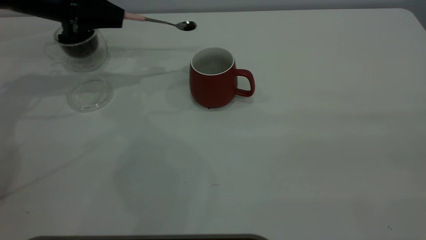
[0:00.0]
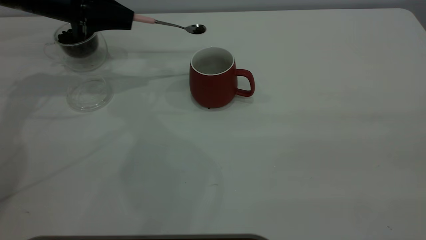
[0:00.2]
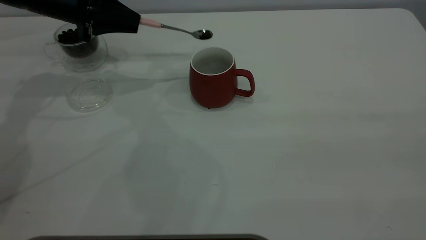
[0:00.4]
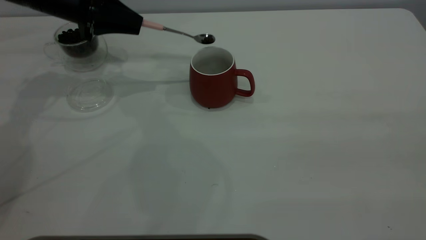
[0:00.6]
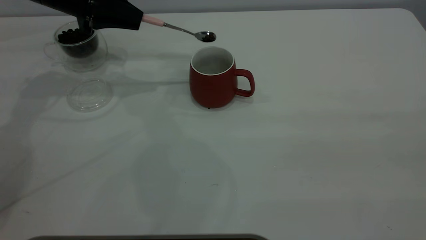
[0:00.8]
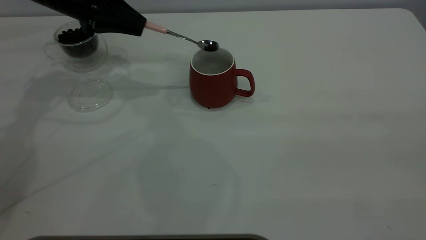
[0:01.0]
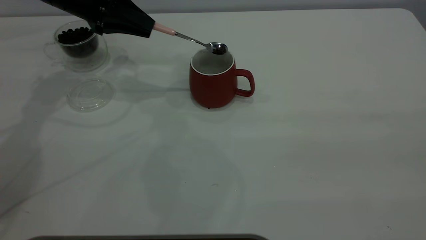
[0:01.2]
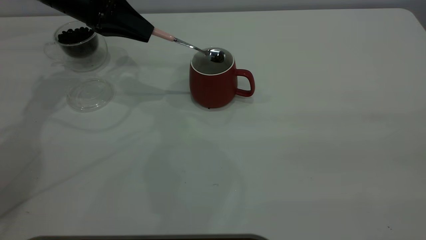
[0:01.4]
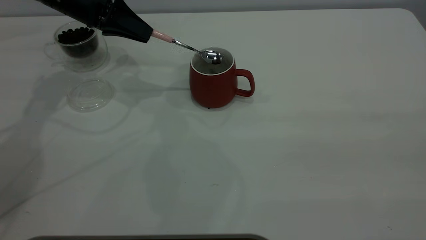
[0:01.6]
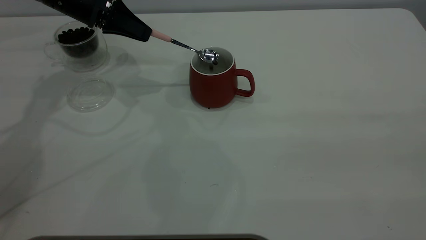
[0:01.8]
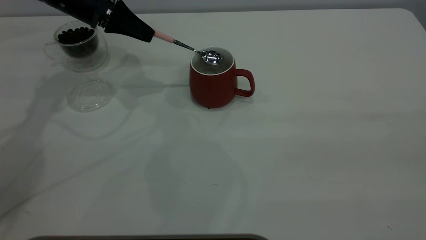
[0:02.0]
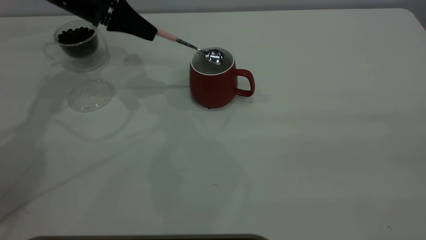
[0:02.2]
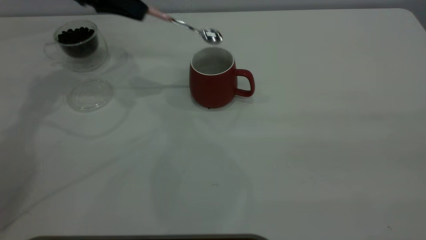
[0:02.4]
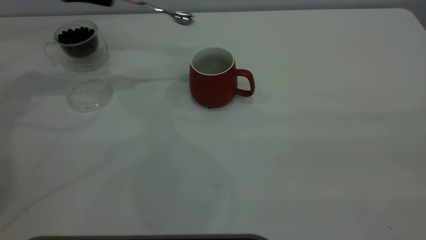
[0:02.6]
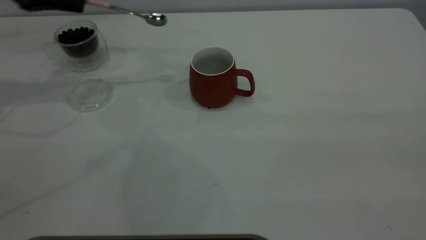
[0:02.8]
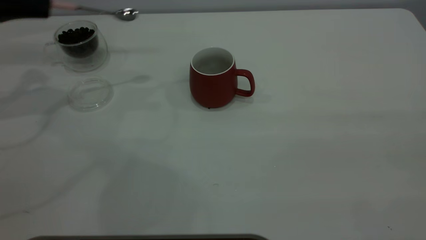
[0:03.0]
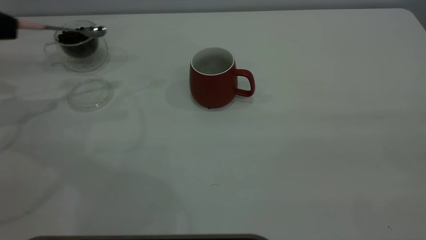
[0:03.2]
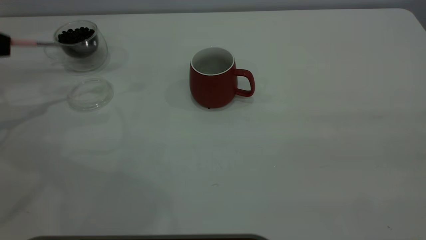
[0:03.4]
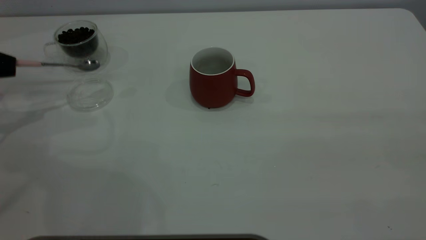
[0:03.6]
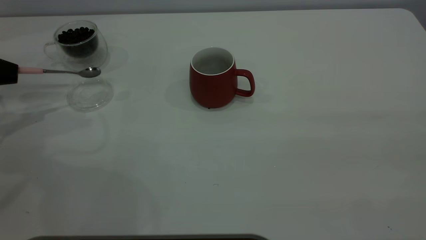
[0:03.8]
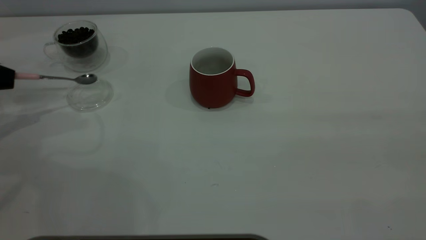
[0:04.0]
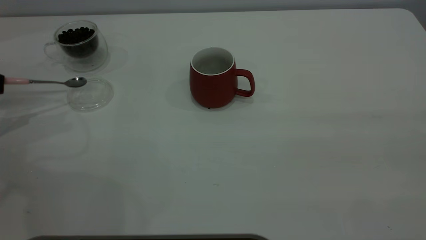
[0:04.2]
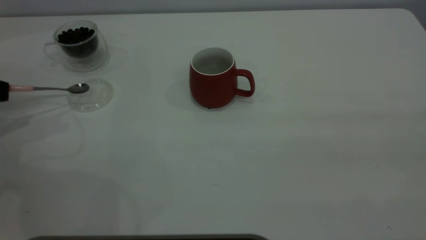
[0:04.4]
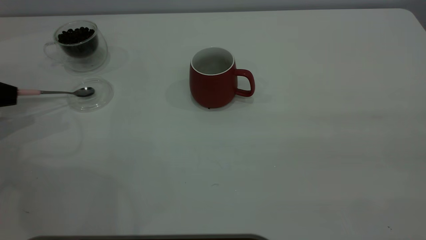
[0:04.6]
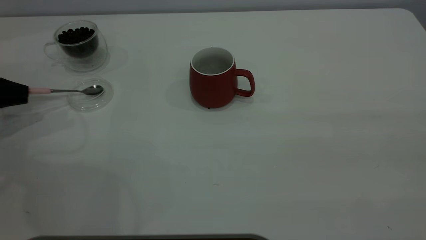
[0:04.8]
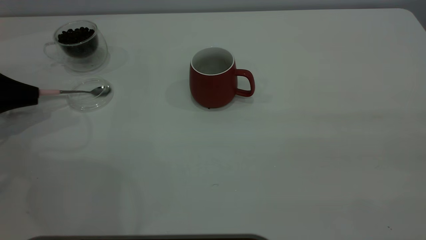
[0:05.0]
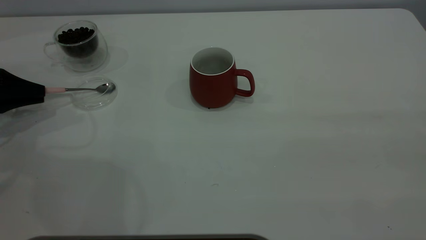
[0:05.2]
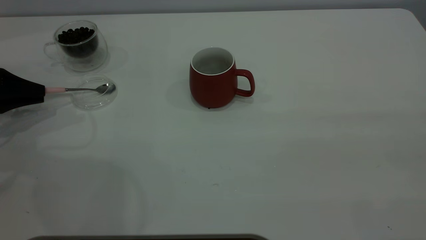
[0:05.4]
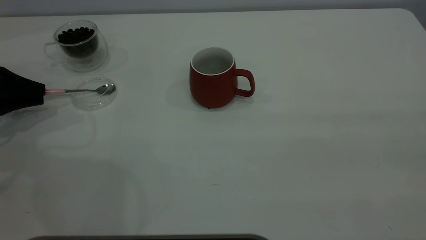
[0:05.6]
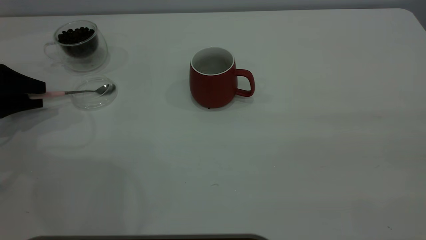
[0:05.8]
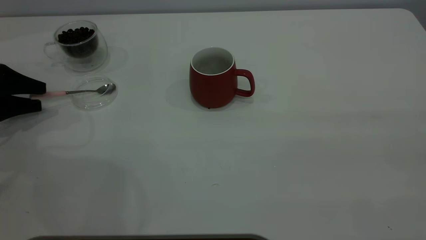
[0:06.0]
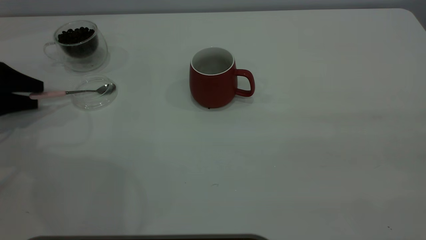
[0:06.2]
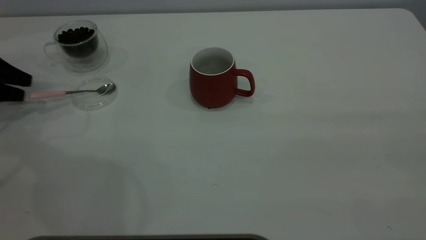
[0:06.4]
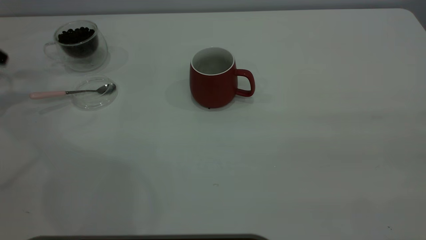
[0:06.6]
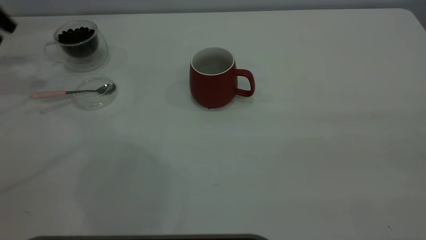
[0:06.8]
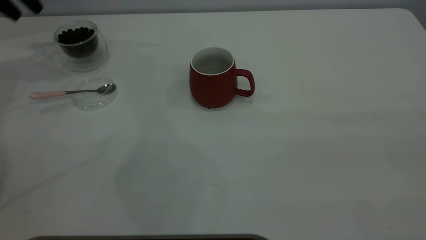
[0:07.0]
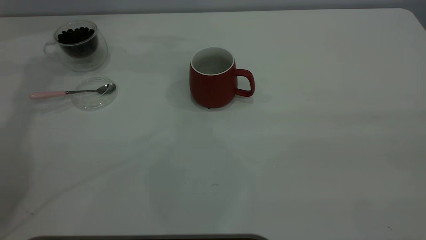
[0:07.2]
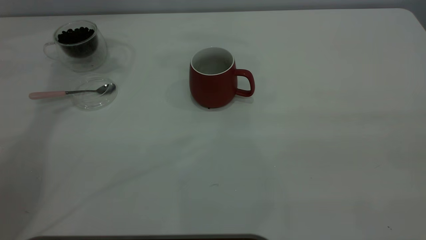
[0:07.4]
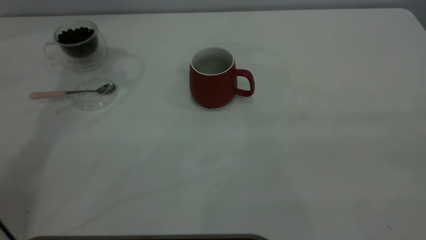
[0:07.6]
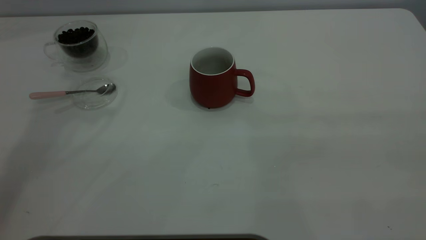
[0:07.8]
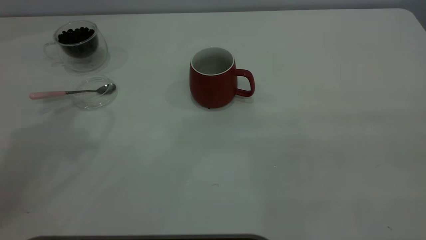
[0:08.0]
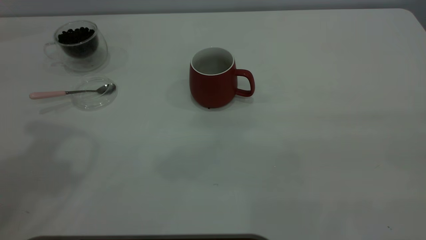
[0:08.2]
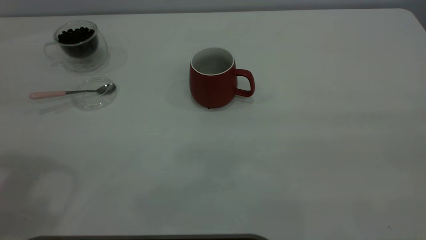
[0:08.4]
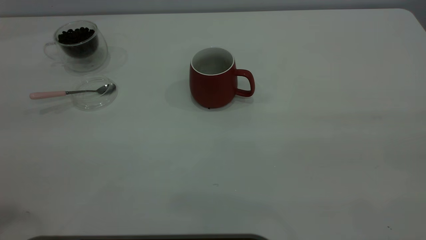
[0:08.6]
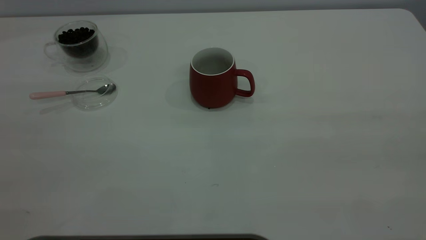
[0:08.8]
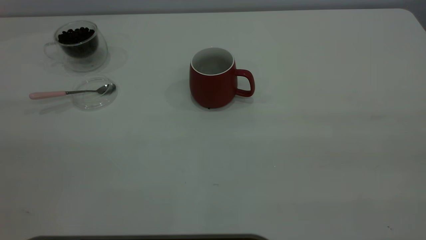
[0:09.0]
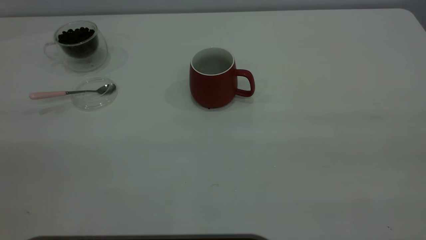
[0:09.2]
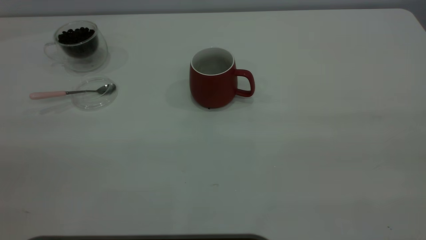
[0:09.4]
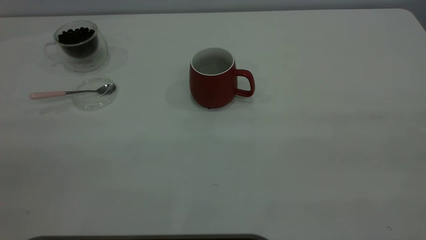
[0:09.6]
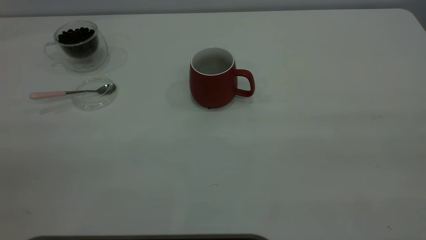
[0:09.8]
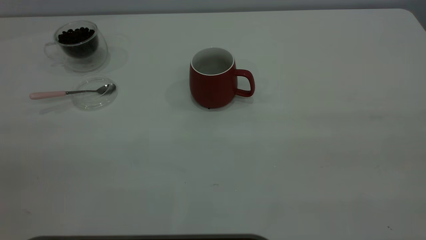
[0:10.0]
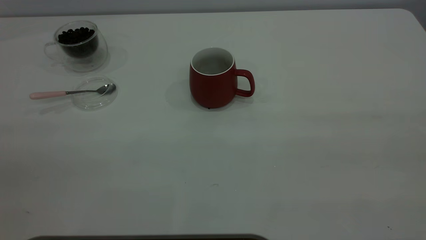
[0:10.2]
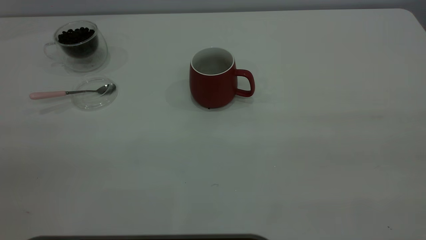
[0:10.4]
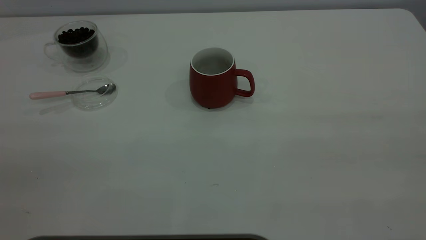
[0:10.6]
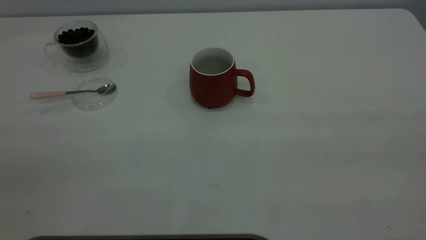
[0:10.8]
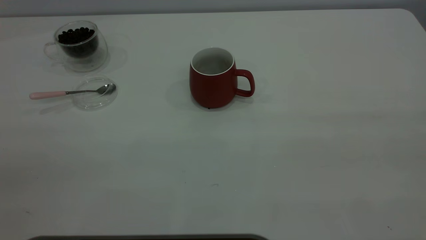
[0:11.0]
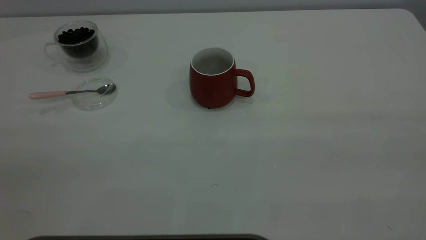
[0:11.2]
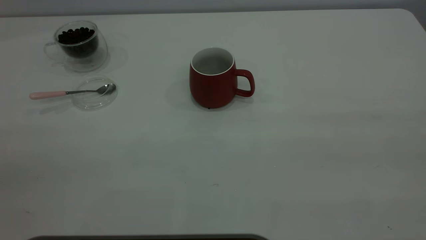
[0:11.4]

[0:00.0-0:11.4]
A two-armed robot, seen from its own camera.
Task of the whole recording: the right gripper place the red cup in the center of the table, the left gripper take the pink spoon from the cup lid and scoop out the coffee beans from the coffee cup and put them into the red cup, the left gripper put the spoon back into the cup lid.
Step, 0:00.0 to 0:02.4: Scoop a spoonful of beans into the cup.
Step, 0:02.6 to 0:06.4: Place the spoon back in its original place.
0:00.0 to 0:01.4: The left gripper is displaced to the right by approximately 5 cm.
0:01.4 to 0:02.8: The left gripper moves to the left, some 10 cm.
0:02.8 to 0:04.2: The left gripper heads to the left, downward and backward, covering some 20 cm.
0:04.2 to 0:05.6: The left gripper moves about 5 cm, and opens up.
0:05.6 to 0:07.2: The left gripper travels upward, forward and to the right by about 30 cm, and opens.
0:10.0 to 0:11.4: Both grippers stay put.

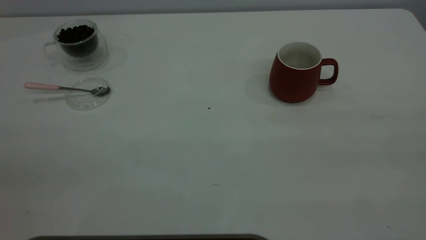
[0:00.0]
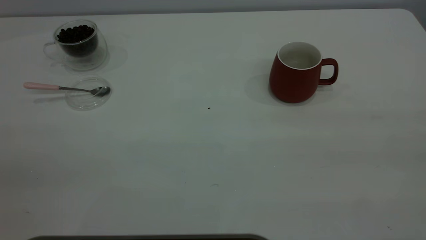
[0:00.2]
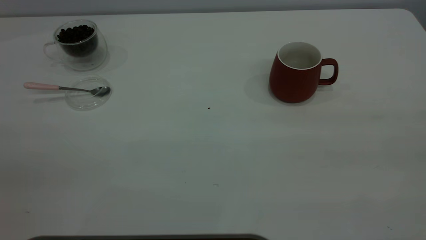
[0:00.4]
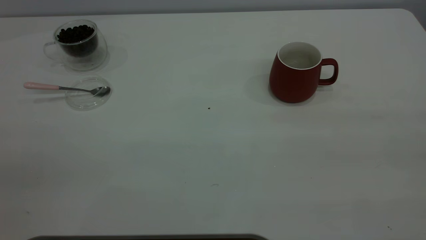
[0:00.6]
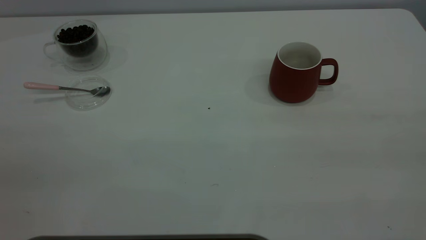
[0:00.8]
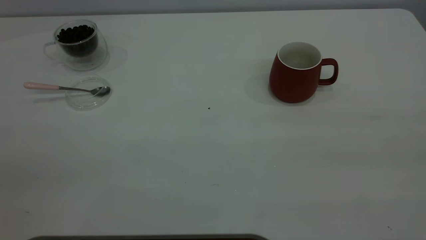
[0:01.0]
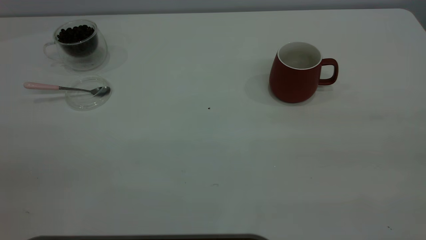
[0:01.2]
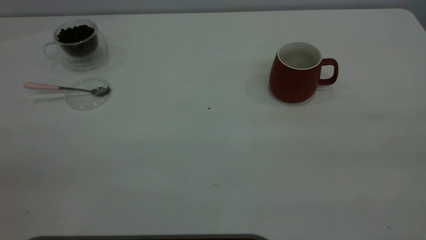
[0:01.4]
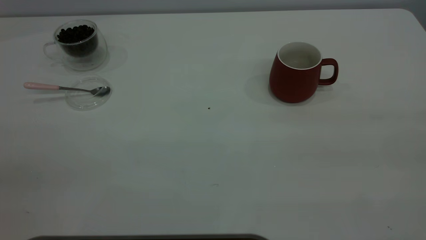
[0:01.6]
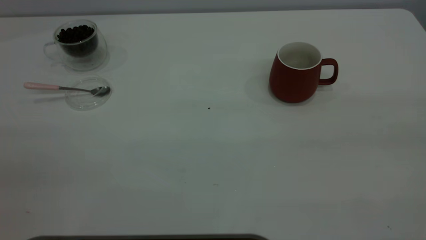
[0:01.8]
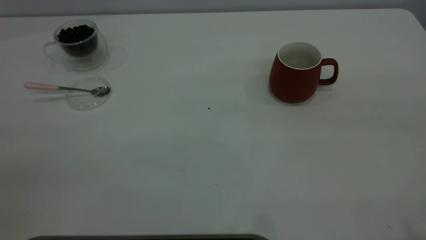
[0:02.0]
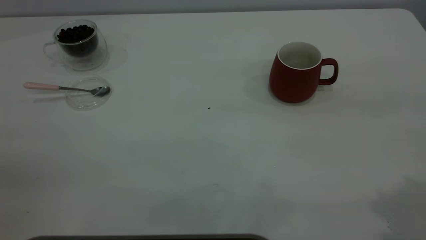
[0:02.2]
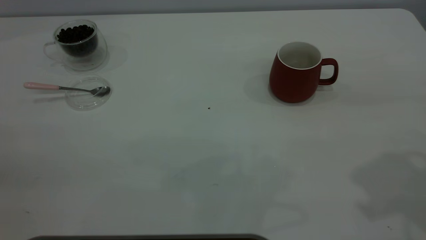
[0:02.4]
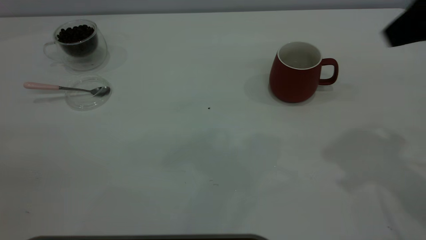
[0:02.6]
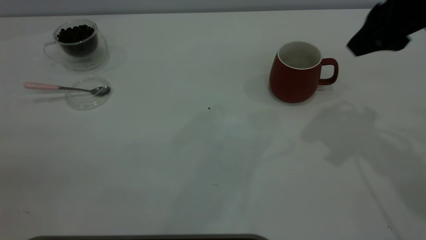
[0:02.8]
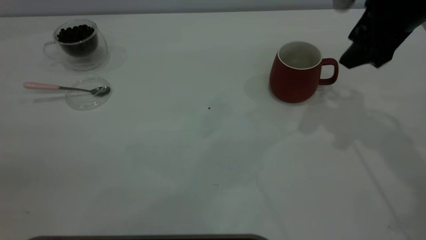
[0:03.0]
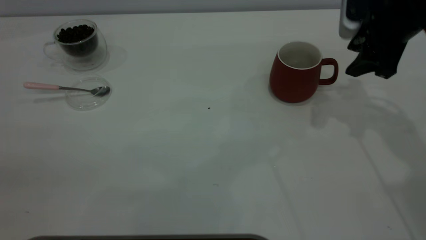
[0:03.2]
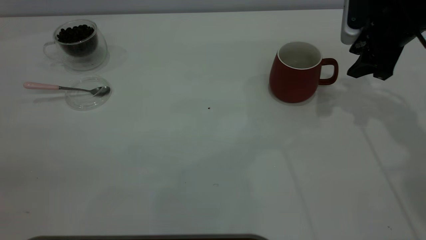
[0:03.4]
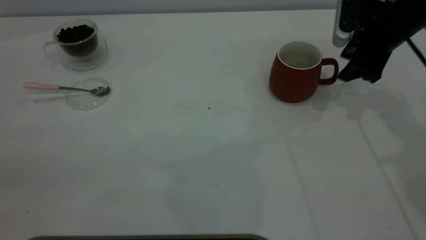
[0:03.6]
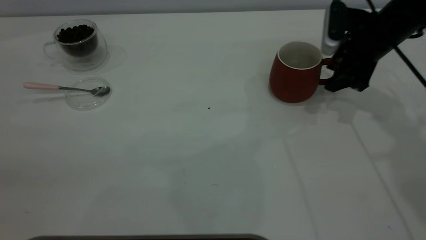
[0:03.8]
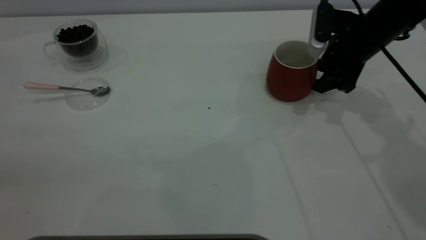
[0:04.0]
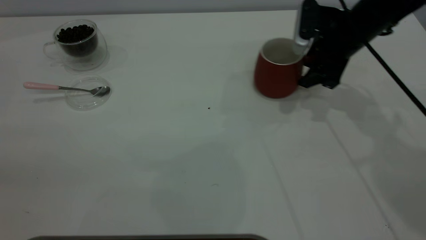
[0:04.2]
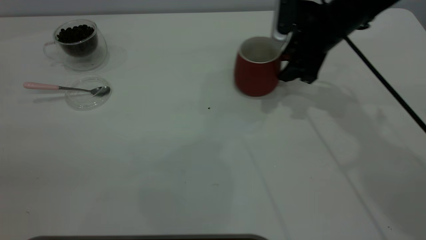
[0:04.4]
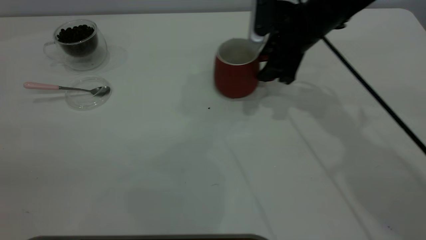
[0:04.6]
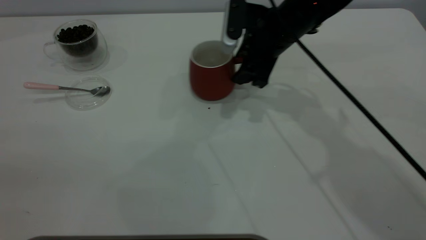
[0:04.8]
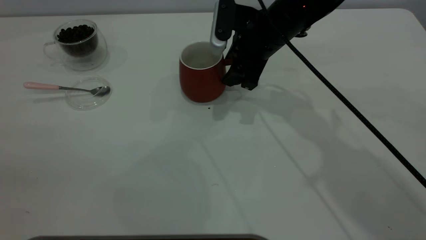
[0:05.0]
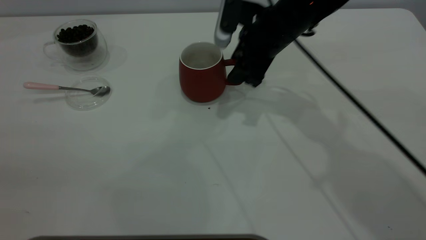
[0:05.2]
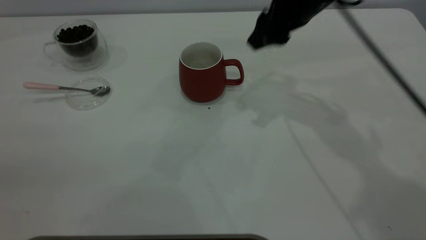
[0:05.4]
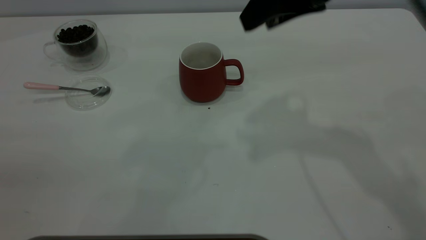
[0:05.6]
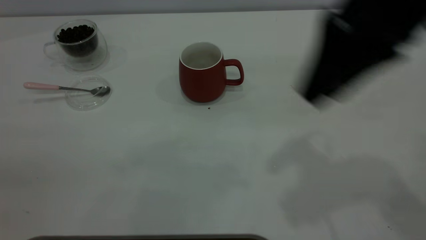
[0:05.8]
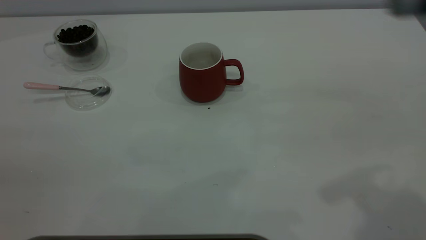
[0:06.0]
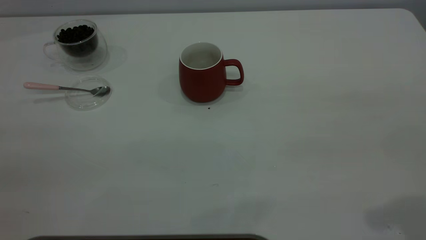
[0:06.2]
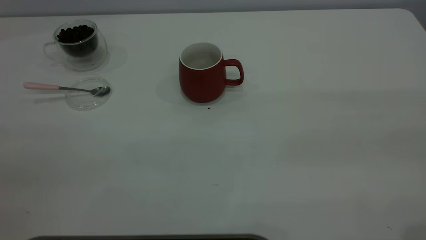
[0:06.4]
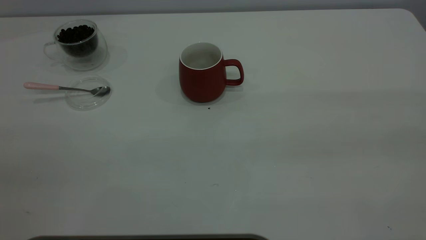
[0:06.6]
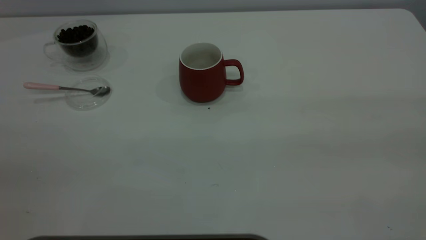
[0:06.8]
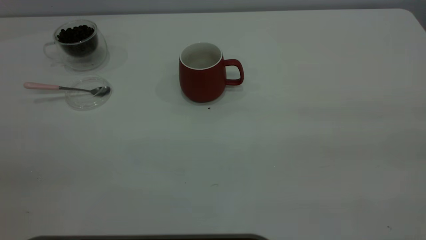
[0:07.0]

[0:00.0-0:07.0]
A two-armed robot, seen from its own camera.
Task of the whole recording: the right gripper place the red cup in the center of the table, the left gripper take the pink spoon from the cup lid and scoop out the coffee beans from the coffee cup and put them into the red cup, the left gripper put the spoon back into the cup lid.
Step, 0:00.0 to 0:05.2: Move the cup to the center of view.
0:00.0 to 0:01.4: Neither gripper changes place.
0:01.4 to 0:02.8: The right gripper moves forward, about 30 cm.
0:02.8 to 0:04.2: The right gripper moves downward and forward, roughly 15 cm.
0:04.2 to 0:05.6: The right gripper moves upward, backward and to the left, about 20 cm.
0:05.6 to 0:07.0: The right gripper is displaced backward and to the right by roughly 35 cm.
